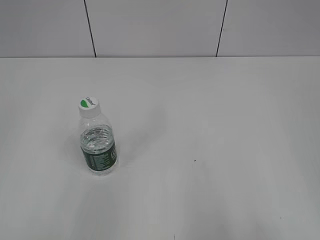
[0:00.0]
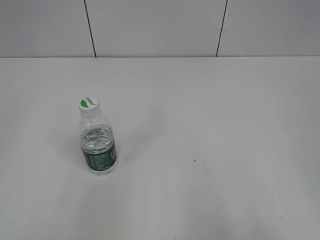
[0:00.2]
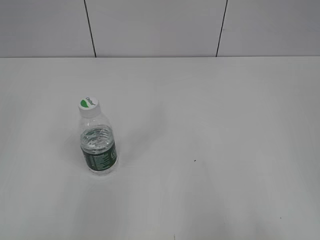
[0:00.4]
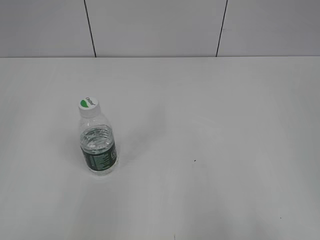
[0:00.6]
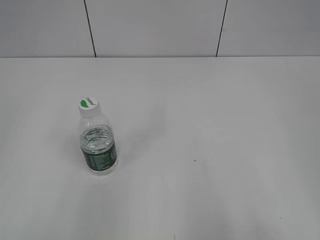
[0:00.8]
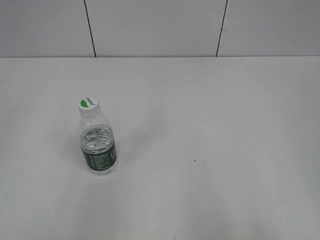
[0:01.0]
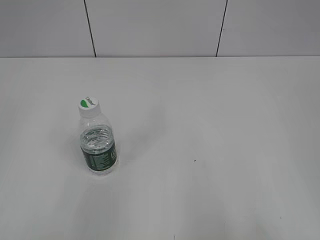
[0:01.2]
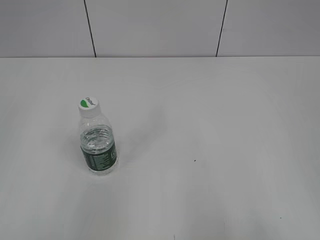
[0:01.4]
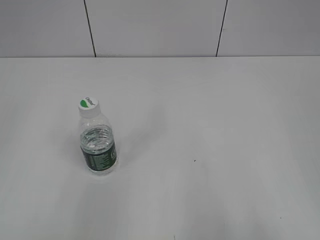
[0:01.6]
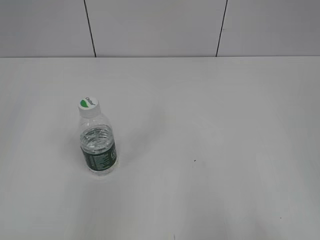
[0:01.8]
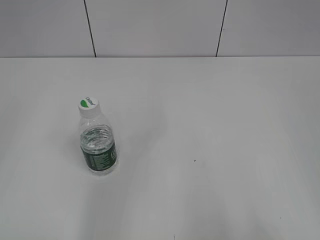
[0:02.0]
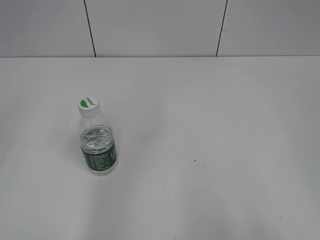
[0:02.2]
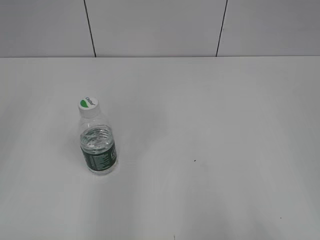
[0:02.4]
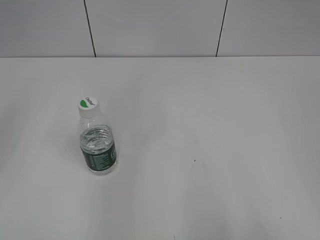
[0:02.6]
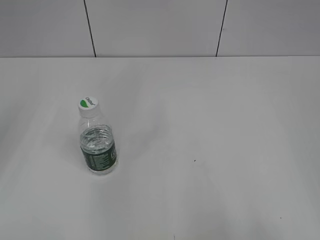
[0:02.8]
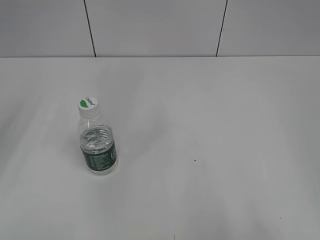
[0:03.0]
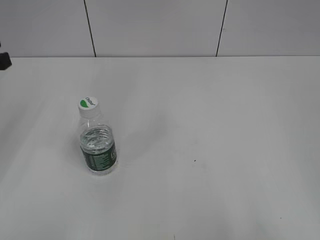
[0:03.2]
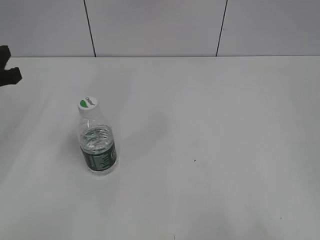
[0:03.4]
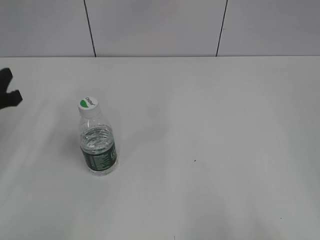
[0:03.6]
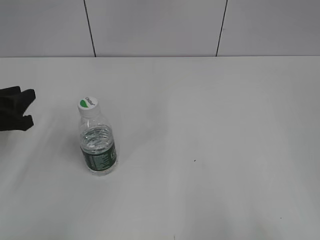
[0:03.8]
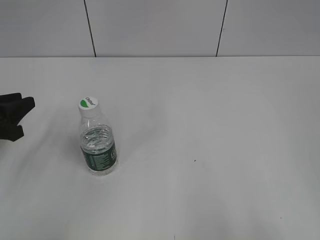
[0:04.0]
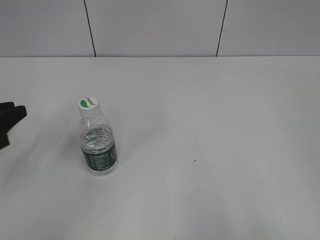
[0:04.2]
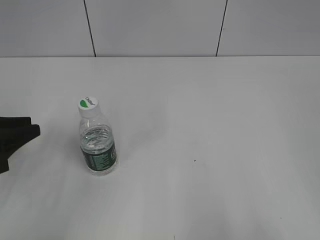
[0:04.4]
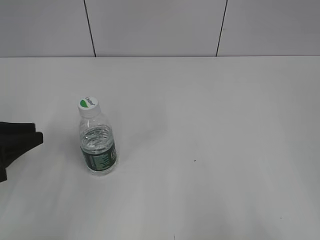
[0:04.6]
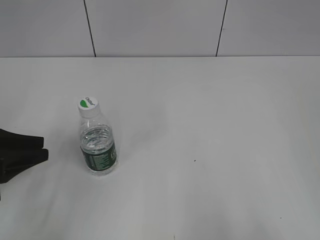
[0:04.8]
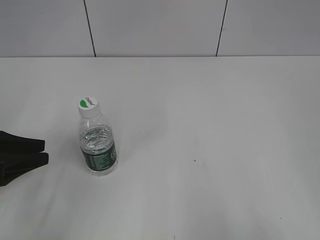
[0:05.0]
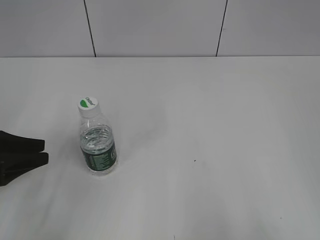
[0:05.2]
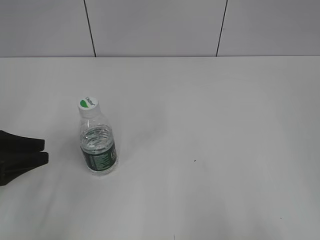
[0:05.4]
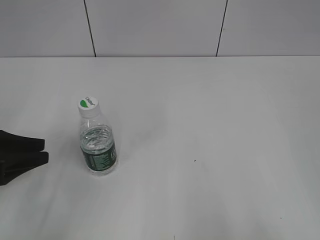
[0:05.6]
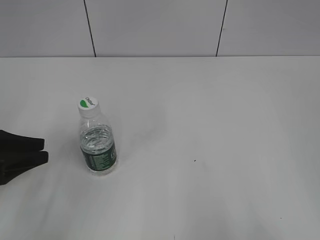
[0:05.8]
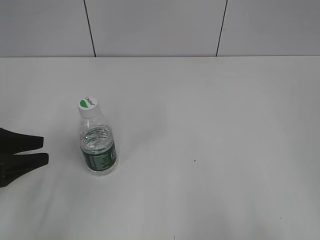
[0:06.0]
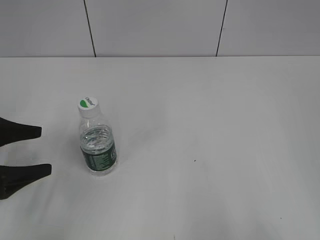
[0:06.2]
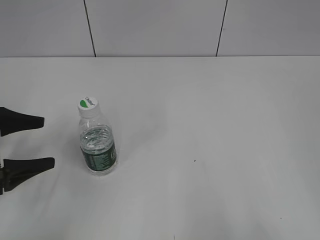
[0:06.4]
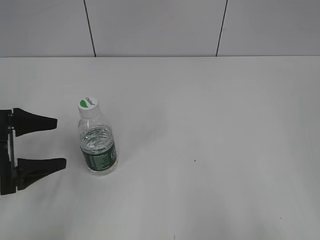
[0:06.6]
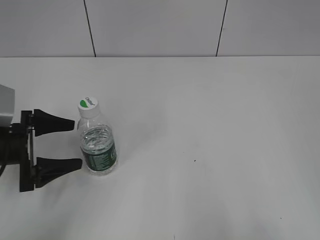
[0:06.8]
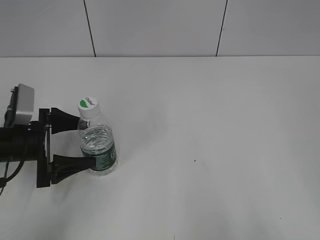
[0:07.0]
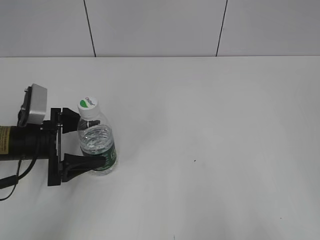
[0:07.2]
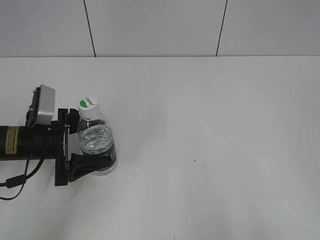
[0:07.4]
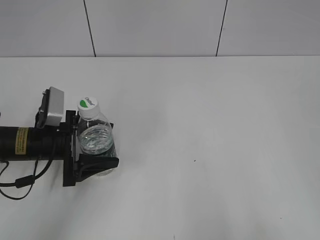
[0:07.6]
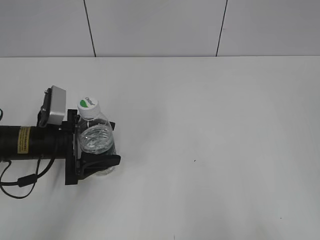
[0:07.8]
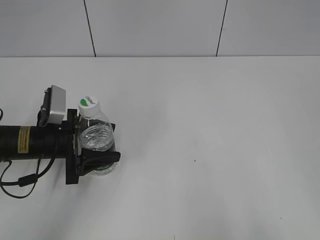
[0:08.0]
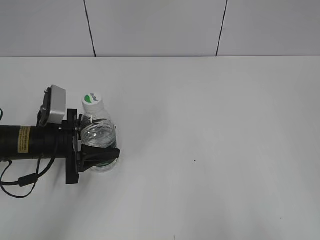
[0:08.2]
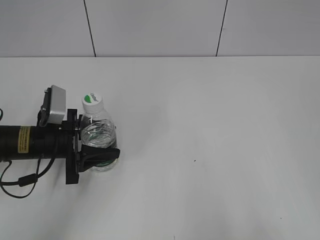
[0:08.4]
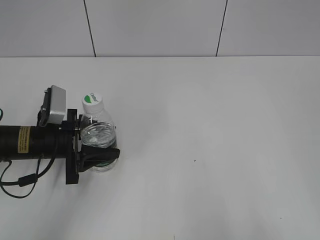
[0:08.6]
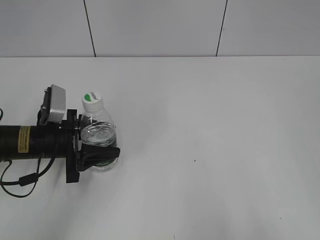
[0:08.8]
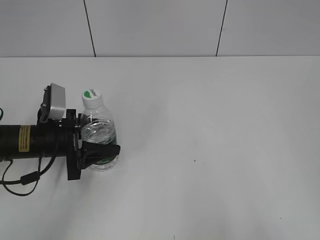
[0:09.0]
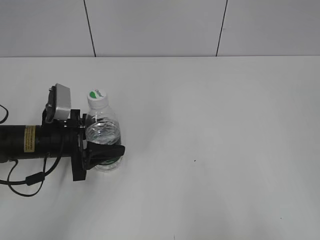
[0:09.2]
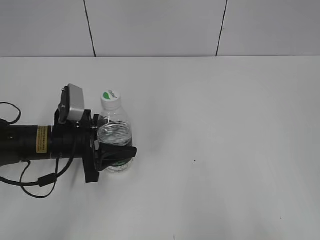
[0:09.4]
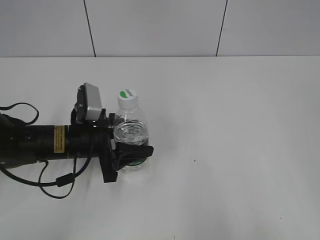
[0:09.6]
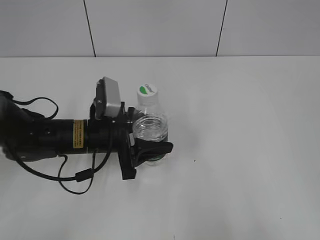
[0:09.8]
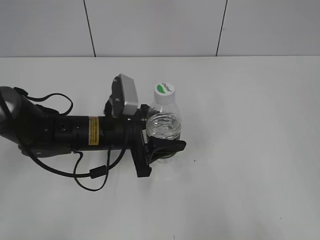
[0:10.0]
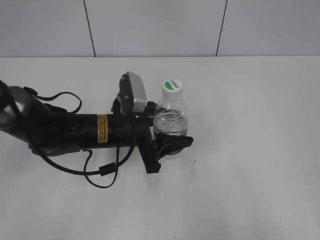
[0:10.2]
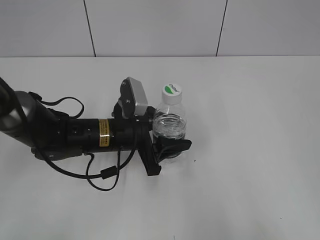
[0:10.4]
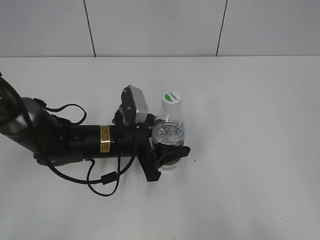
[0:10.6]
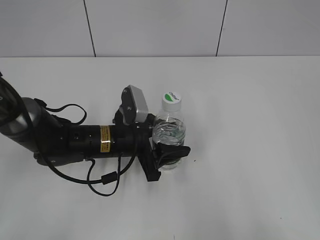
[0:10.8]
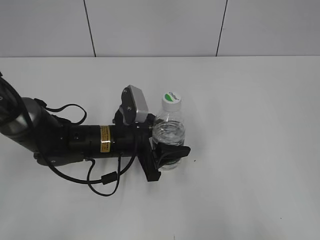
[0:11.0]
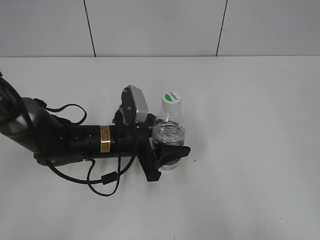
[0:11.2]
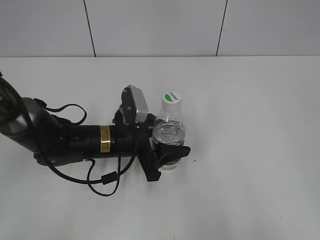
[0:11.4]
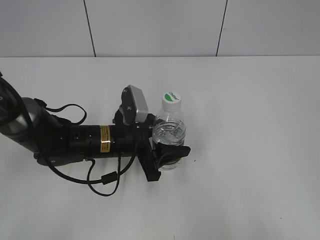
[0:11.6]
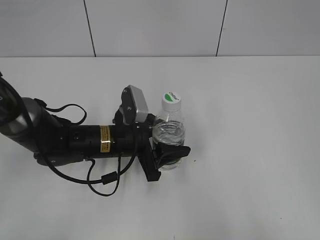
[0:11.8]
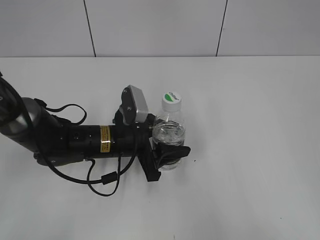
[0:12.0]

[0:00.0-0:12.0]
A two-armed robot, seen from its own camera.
Step, 0:00.0 to 0:08.0: Grasp the bottle and move it to the center of the table with the left gripper.
Step, 0:08.2 to 0:11.4: Lift the bottle and move it to the center of the table with the left gripper.
0:03.0 to 0:04.4: The left gripper travels downward by roughly 15 cm.
0:06.0 to 0:07.6: The left gripper shifts some 10 cm to the right and forward, and opens.
0:07.6 to 0:09.0: The left gripper closes up.
0:09.0 to 0:10.4: The left gripper travels to the right by approximately 15 cm.
0:10.4 to 0:12.0: There are only small adjustments of the grippers.

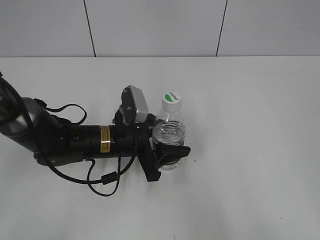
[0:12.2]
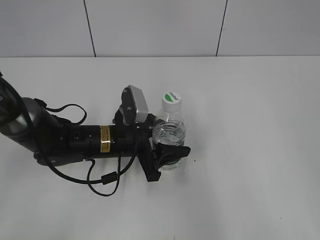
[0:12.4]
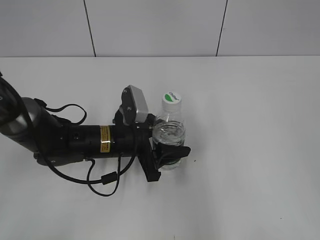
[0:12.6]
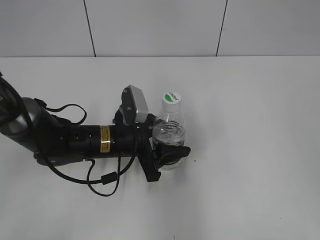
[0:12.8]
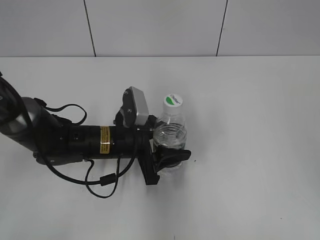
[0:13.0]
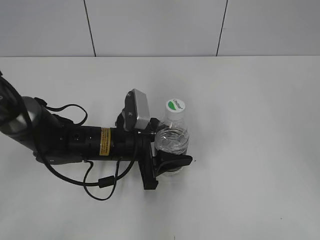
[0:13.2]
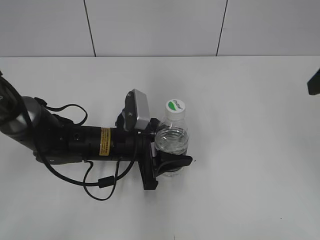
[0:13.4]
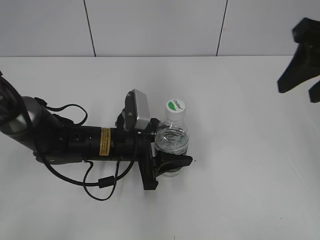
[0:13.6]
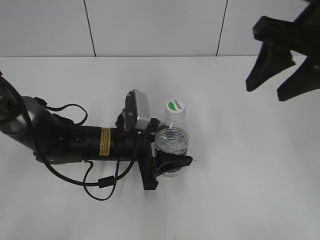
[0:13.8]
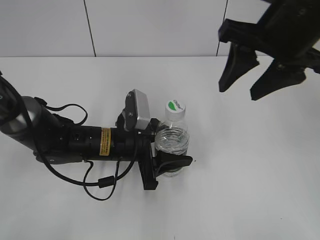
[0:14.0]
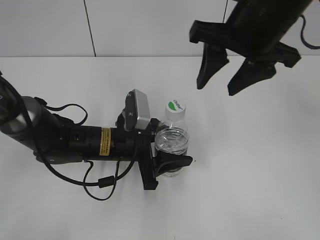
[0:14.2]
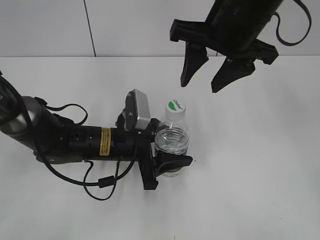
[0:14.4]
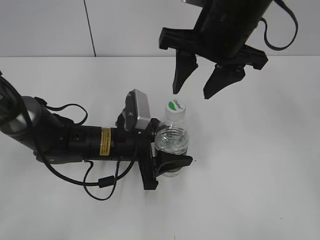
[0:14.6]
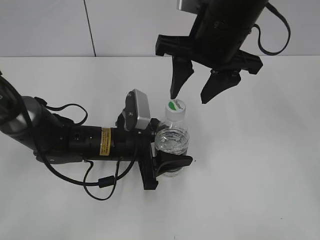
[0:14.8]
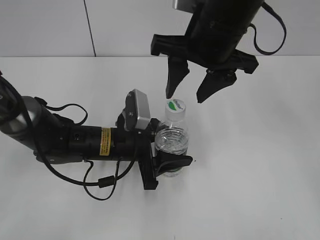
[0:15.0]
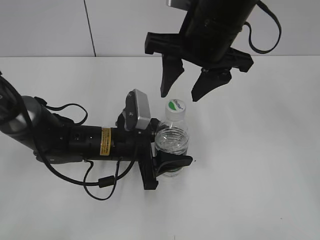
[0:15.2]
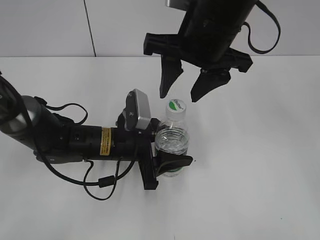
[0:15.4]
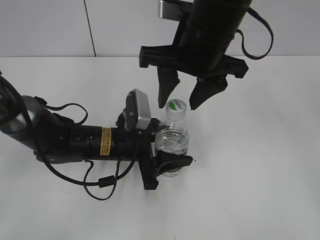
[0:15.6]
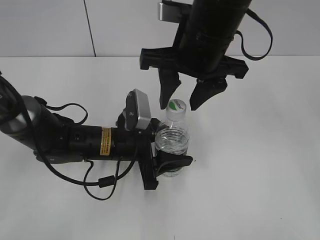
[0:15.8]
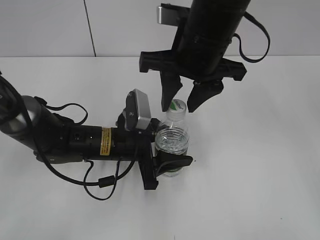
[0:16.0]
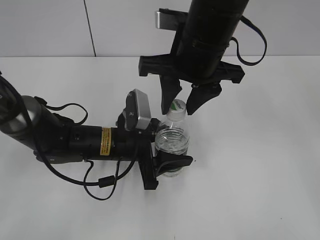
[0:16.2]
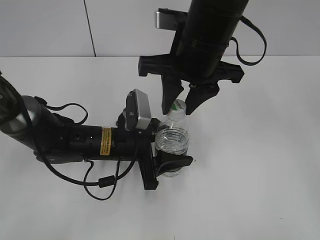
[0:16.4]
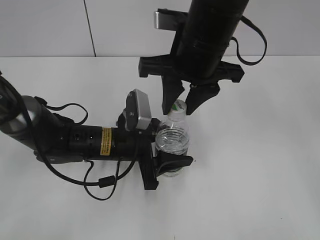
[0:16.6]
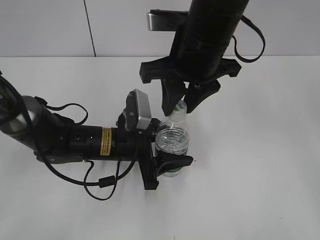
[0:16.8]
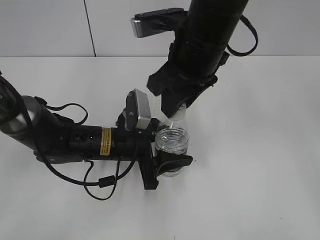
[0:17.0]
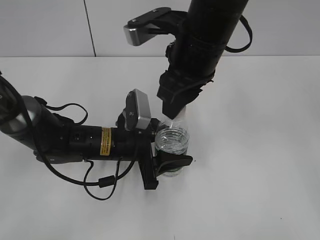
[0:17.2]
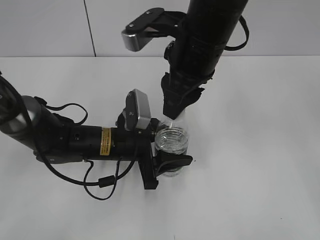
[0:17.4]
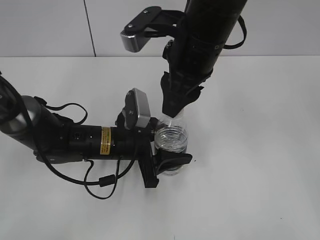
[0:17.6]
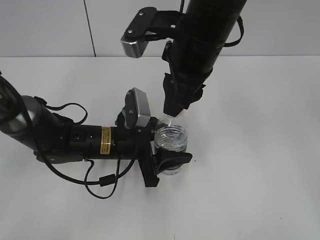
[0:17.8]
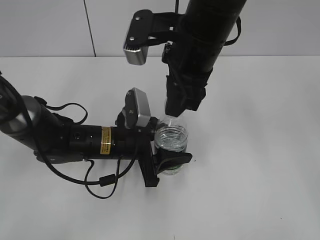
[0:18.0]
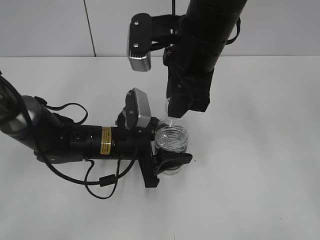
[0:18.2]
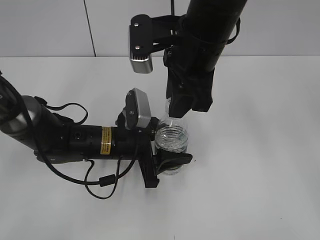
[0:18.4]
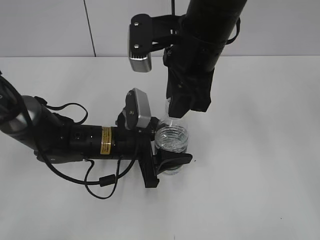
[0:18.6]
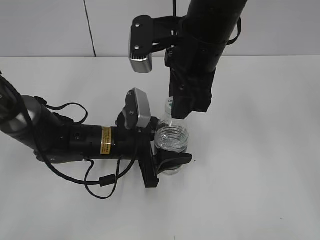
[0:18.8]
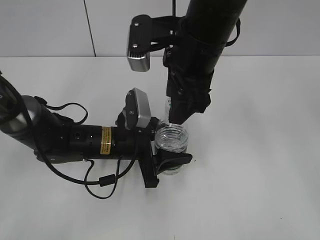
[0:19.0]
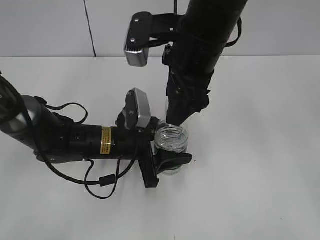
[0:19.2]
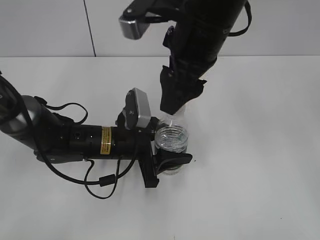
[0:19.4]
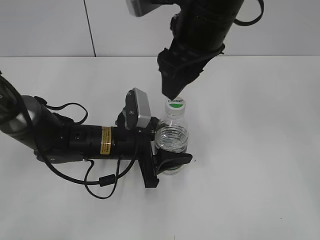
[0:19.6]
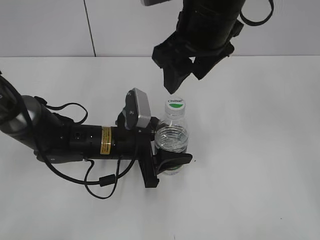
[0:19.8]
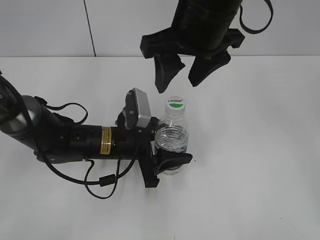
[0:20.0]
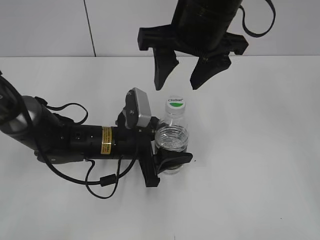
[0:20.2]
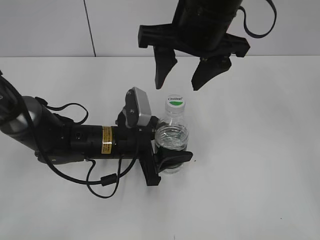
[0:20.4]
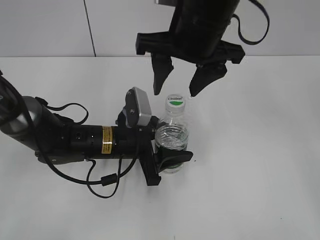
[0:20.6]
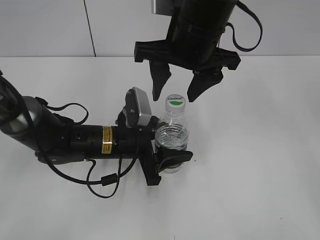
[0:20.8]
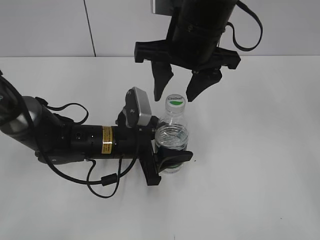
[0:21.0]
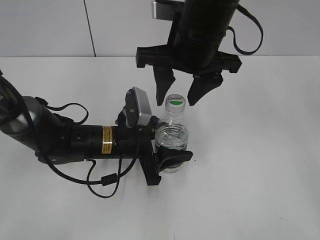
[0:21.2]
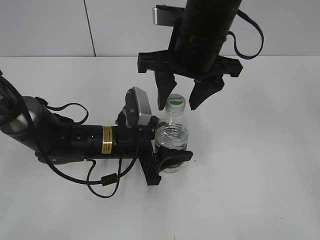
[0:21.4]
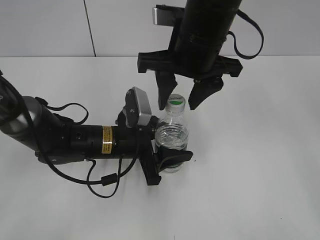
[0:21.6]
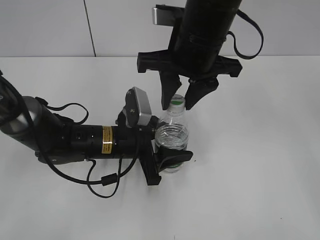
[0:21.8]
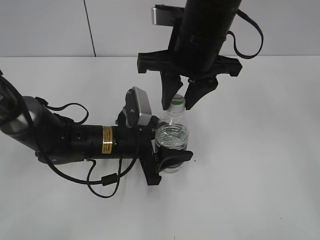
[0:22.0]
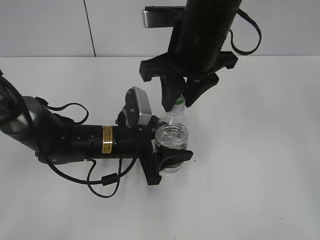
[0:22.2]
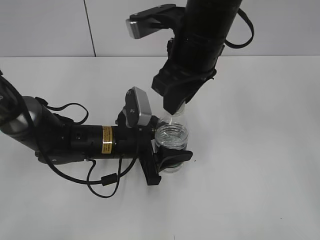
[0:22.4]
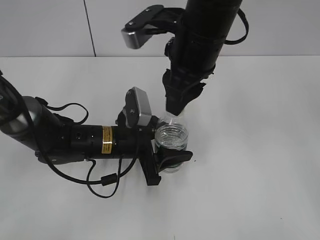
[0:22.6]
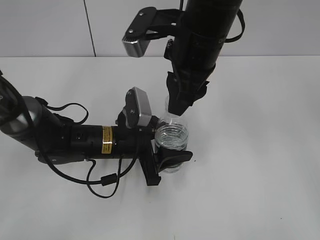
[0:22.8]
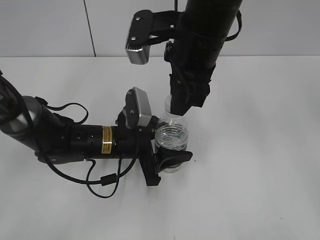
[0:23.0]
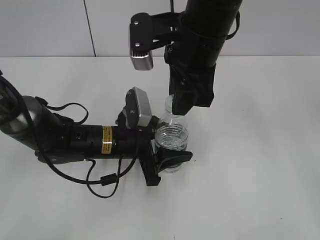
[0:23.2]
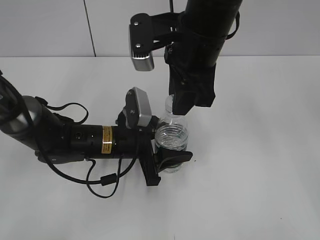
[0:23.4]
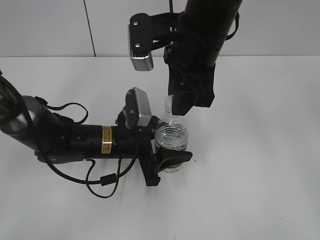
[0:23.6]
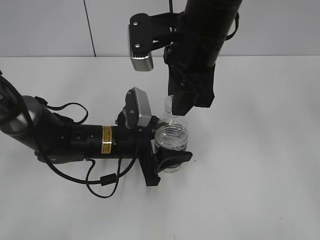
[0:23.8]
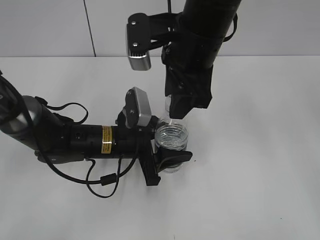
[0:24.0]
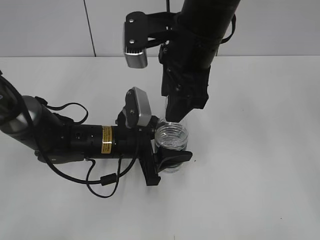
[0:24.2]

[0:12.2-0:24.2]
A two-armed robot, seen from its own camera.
0:12.2 to 0:13.8: The right gripper goes roughly 30 cm forward and to the left.
0:13.8 to 0:15.2: The right gripper moves to the left, about 15 cm.
0:15.2 to 0:16.6: The right gripper closes its fingers.
0:18.2 to 0:19.8: The right gripper opens.
0:21.2 to 0:22.6: The right gripper closes up.
0:22.6 to 0:24.2: The right gripper opens.
